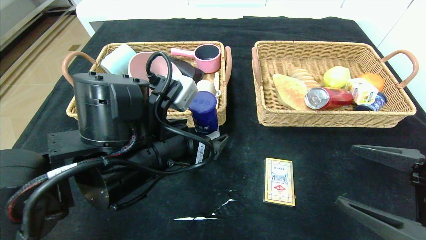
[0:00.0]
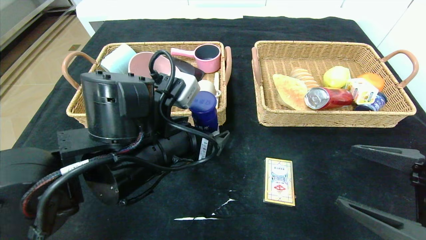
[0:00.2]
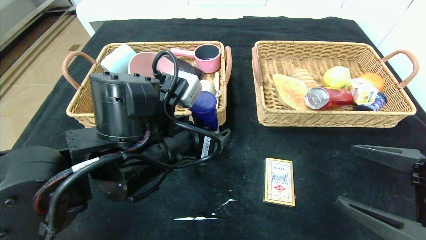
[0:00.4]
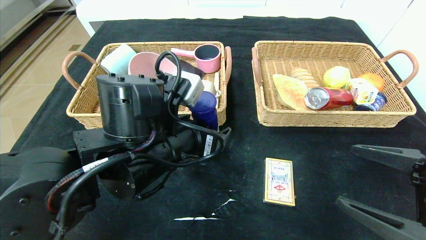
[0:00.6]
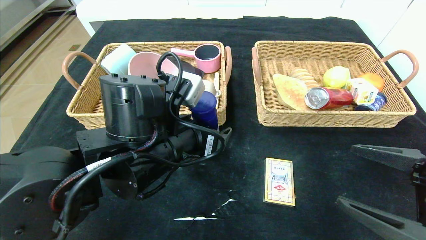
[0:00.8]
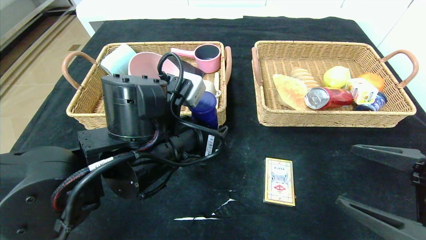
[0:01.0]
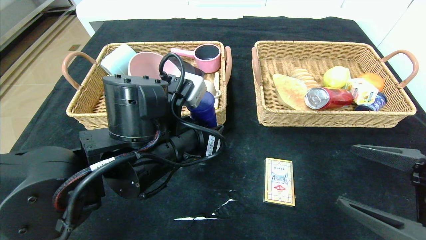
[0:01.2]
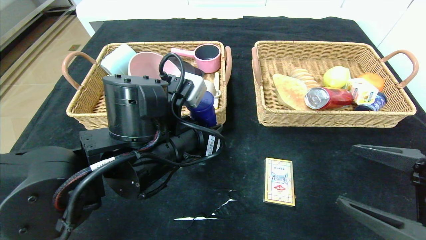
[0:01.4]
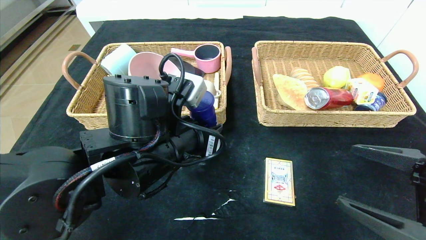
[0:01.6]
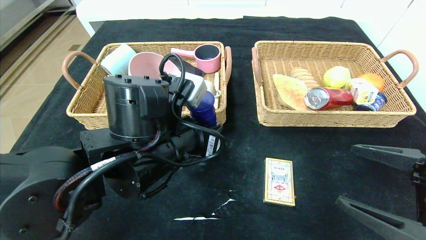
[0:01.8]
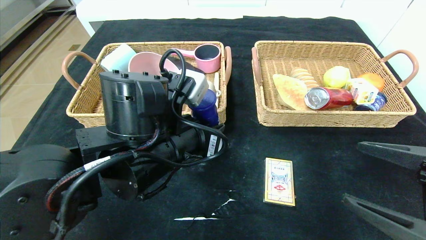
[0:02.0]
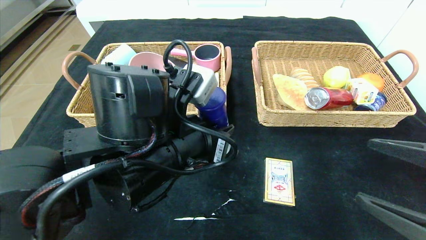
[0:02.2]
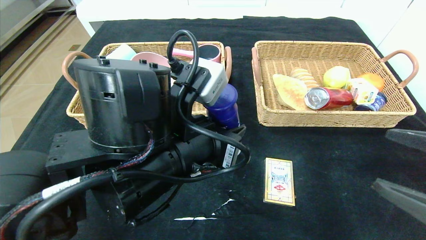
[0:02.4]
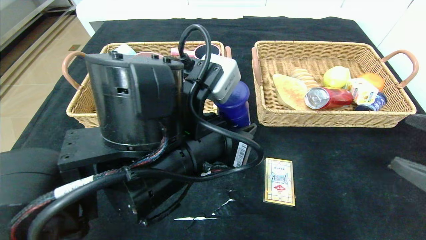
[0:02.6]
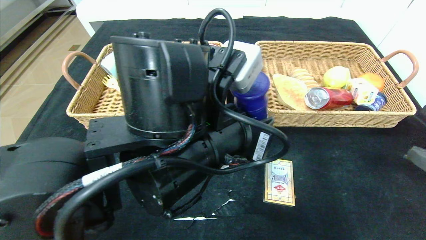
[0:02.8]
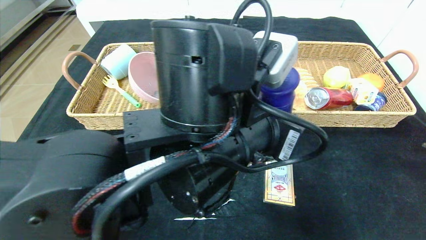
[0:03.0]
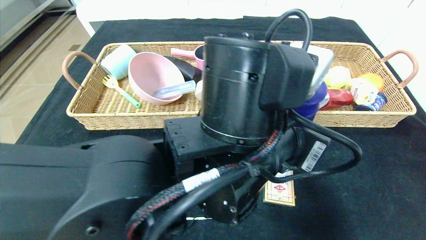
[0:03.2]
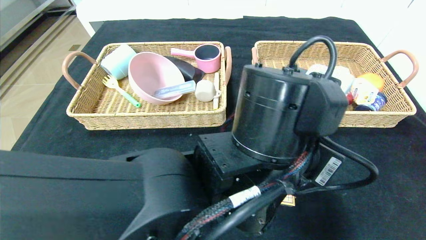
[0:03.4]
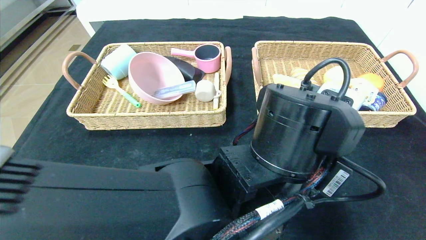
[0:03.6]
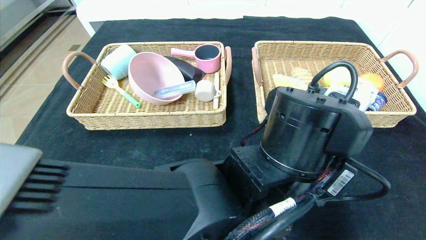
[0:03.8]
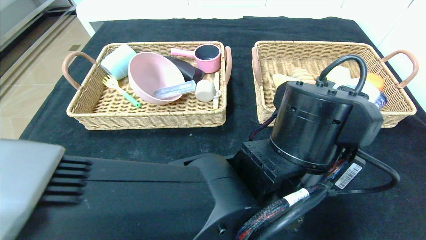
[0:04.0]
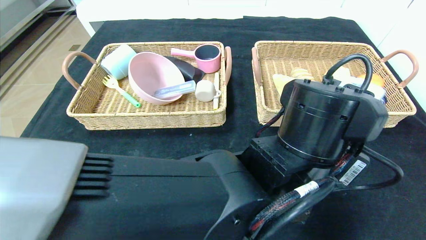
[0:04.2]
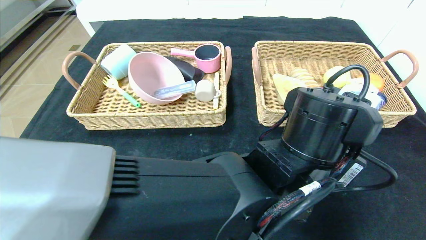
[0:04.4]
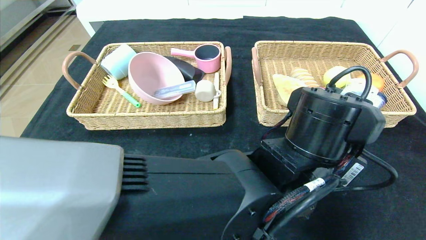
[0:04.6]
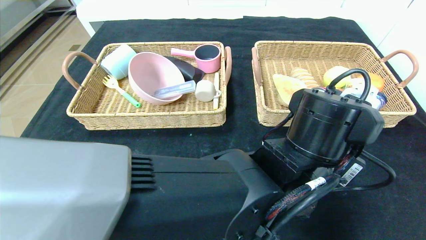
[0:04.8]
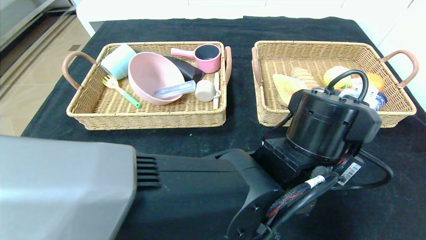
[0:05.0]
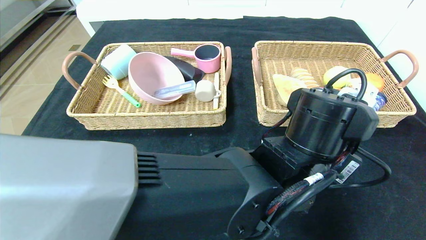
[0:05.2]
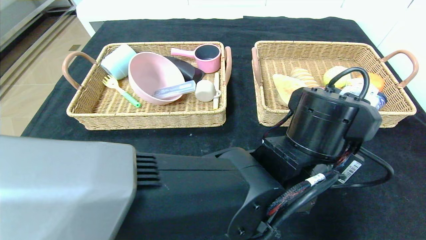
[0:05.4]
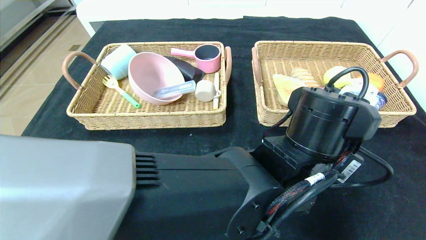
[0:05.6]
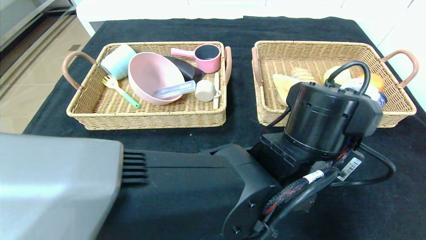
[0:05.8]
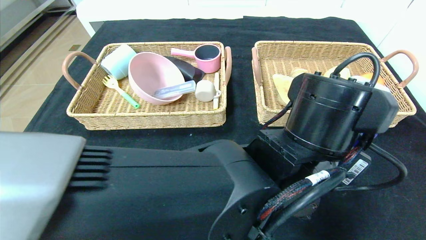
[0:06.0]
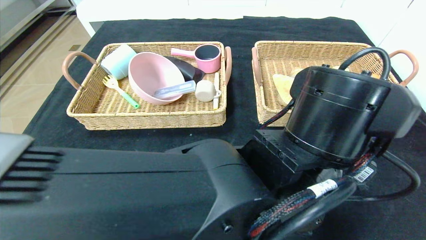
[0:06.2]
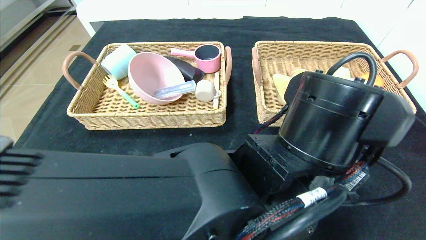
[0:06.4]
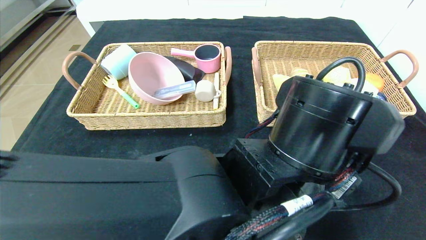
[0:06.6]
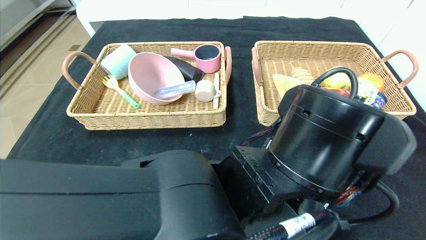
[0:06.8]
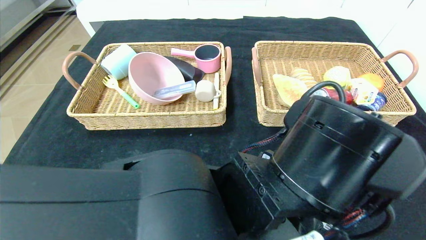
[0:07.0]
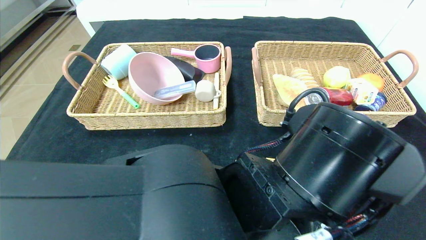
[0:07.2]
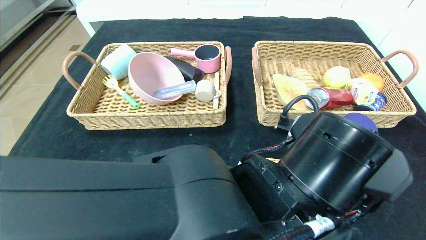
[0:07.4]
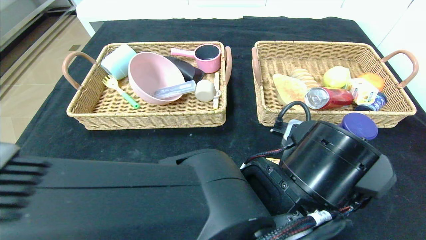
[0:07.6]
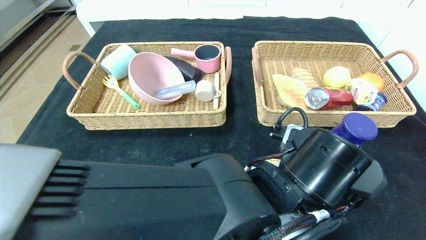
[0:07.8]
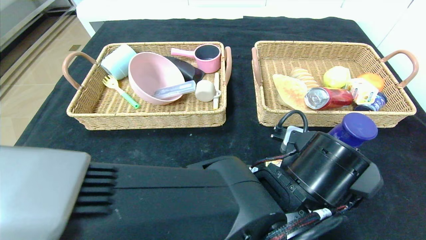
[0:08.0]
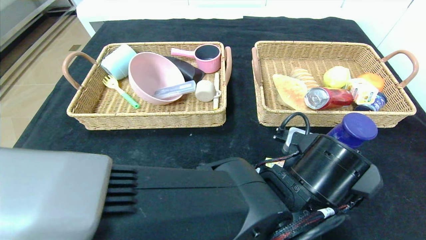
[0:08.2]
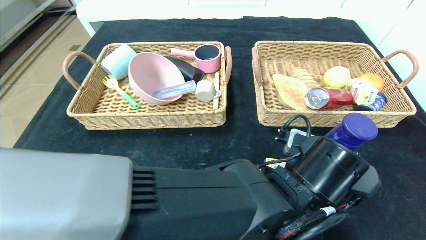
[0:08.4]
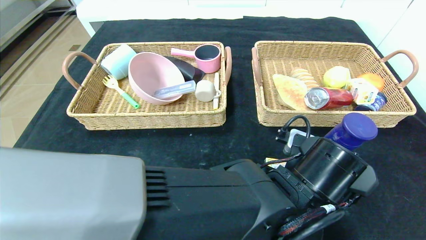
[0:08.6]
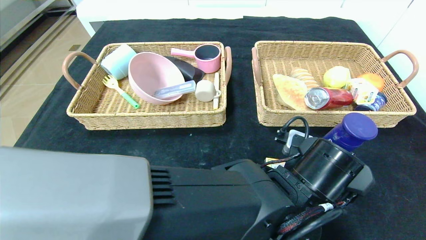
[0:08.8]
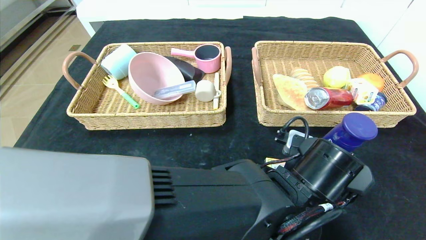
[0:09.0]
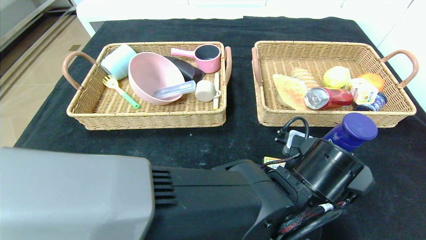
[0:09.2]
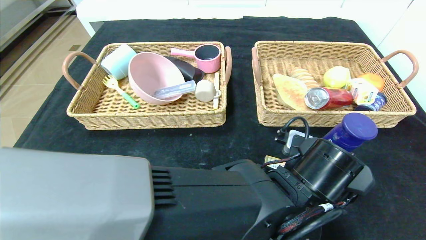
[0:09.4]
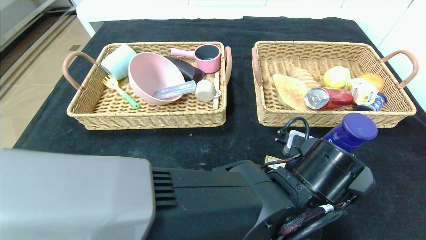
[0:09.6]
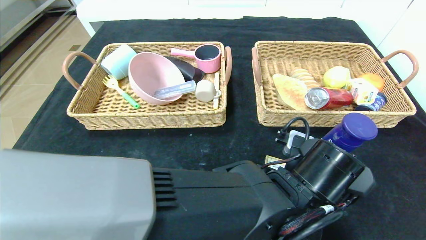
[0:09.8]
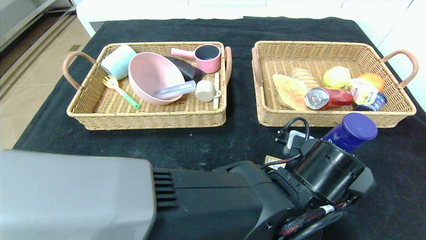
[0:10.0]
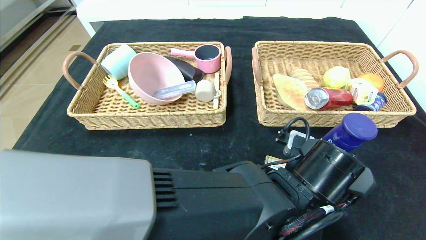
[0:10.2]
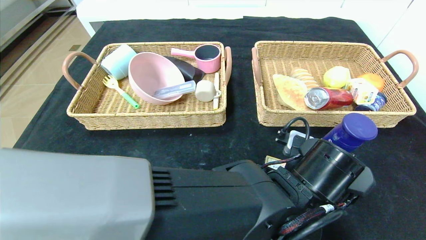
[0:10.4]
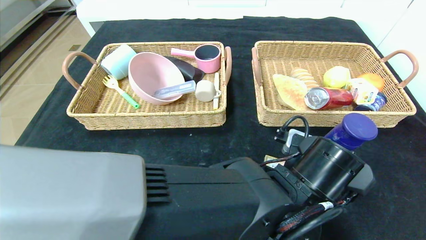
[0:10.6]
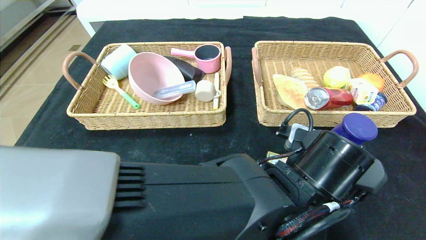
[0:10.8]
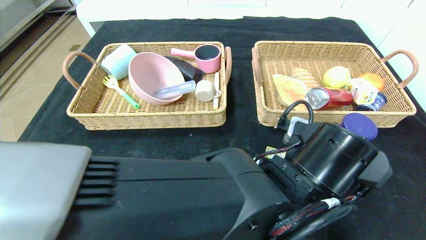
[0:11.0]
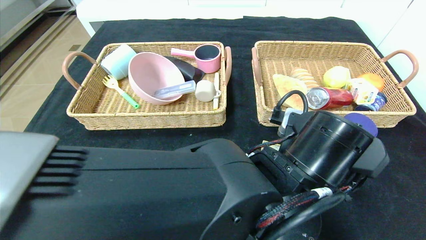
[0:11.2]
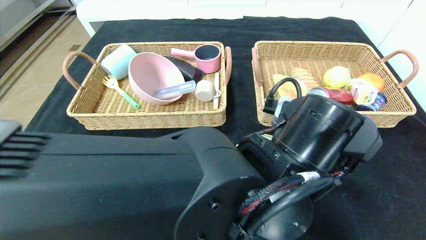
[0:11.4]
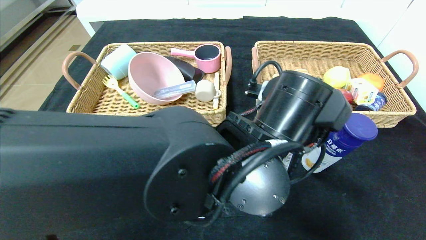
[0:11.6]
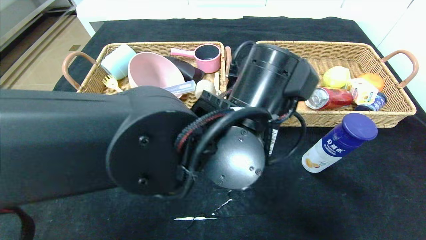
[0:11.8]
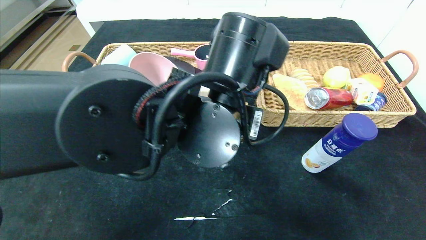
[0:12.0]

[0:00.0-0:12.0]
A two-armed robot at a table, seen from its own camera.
Step, 0:00.0 to 0:05.8: Place the yogurt in the center of the table.
0:00.0 to 0:01.6: The left gripper closes up.
0:01.6 to 0:03.0: The left gripper is displaced to the right by approximately 10 cm; the right gripper heads upward, covering roughly 5 cm.
0:03.0 to 0:04.4: The left gripper is displaced to the right by about 10 cm.
0:04.4 to 0:06.0: The left gripper opens its fingers.
0:06.0 to 0:07.6: The left gripper moves about 5 cm.
0:07.6 to 0:09.0: The left gripper moves about 5 cm.
0:09.0 to 0:10.4: The left gripper closes its fingers.
0:10.4 to 0:12.0: The left gripper heads upward and to the left, covering approximately 15 cm.

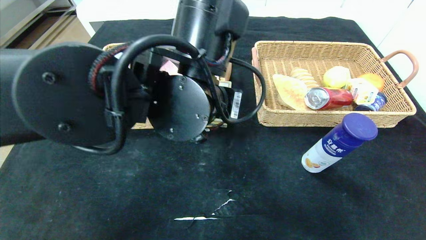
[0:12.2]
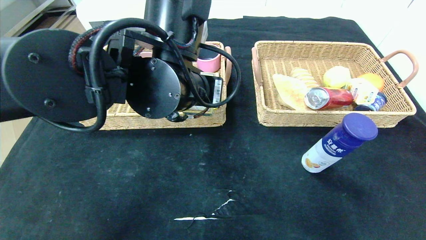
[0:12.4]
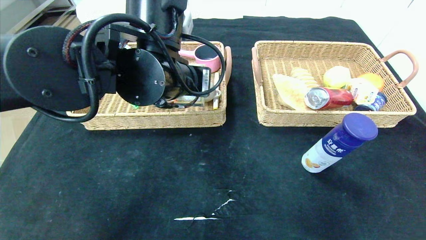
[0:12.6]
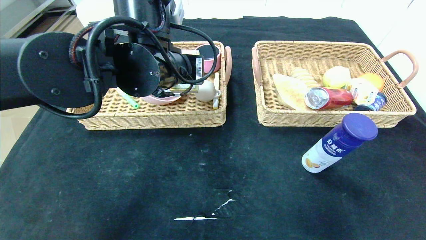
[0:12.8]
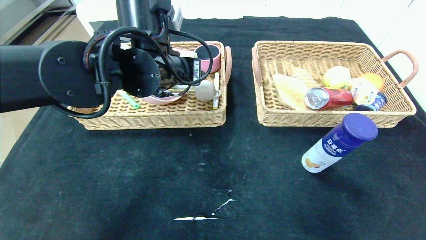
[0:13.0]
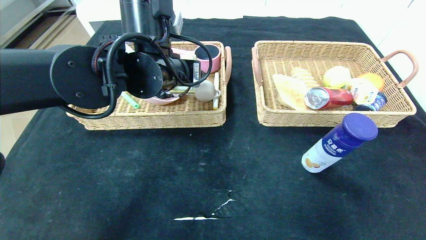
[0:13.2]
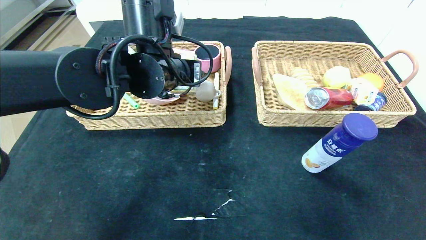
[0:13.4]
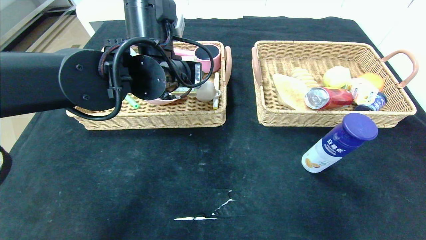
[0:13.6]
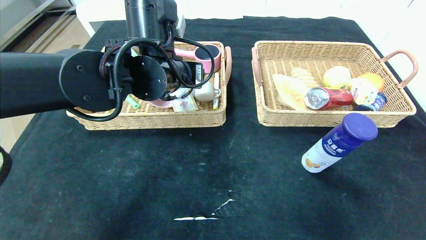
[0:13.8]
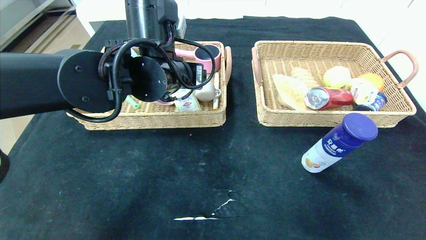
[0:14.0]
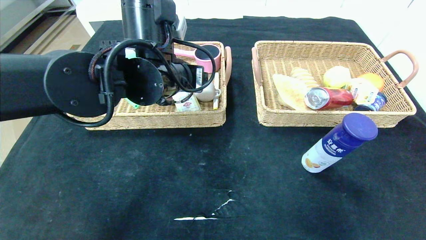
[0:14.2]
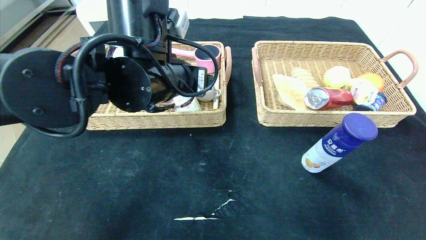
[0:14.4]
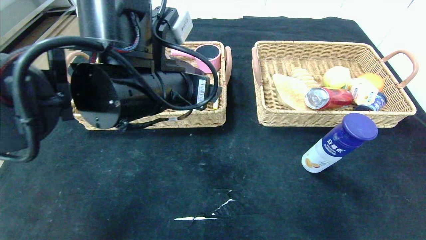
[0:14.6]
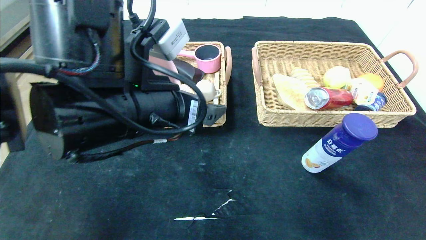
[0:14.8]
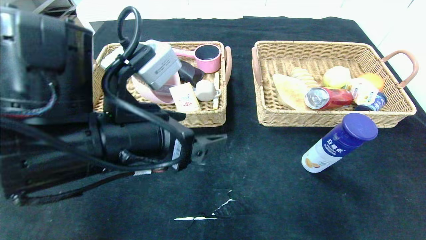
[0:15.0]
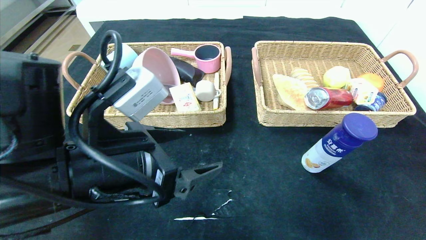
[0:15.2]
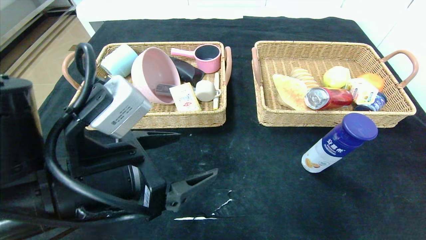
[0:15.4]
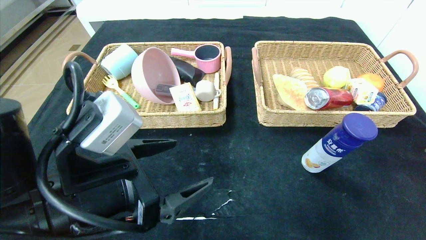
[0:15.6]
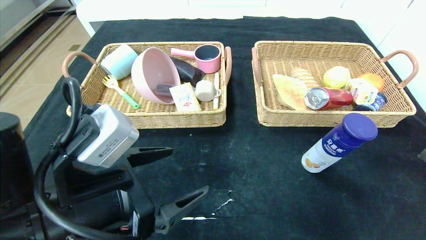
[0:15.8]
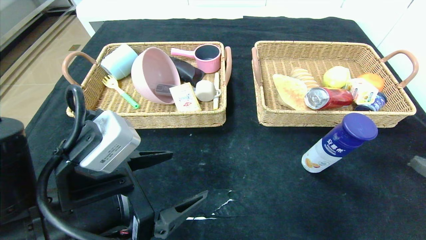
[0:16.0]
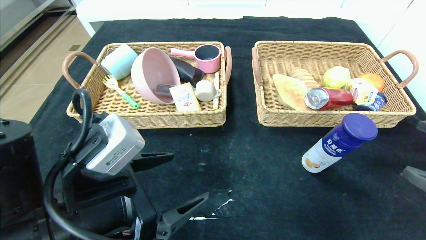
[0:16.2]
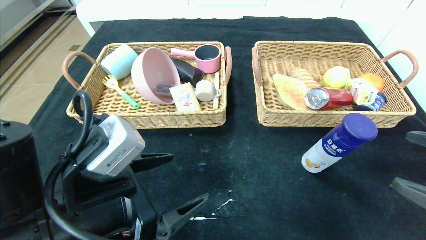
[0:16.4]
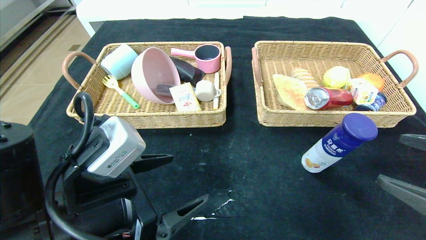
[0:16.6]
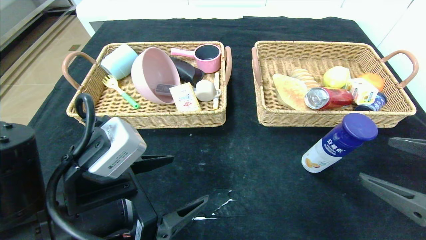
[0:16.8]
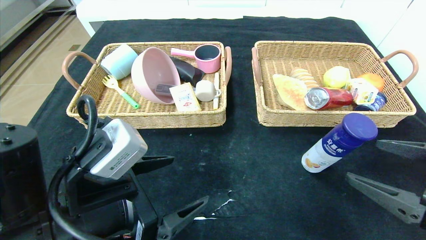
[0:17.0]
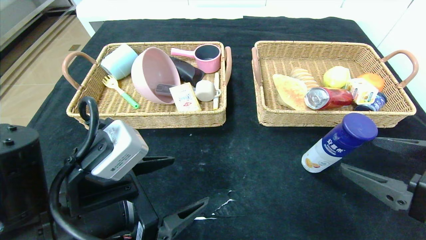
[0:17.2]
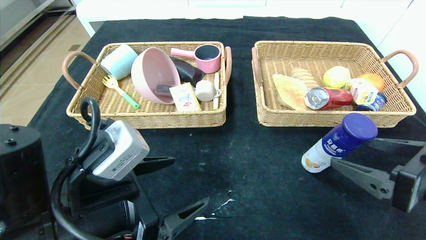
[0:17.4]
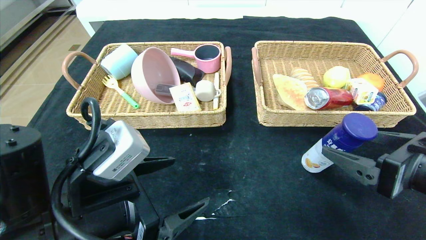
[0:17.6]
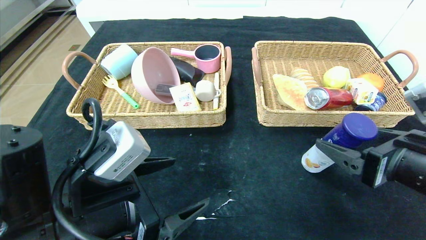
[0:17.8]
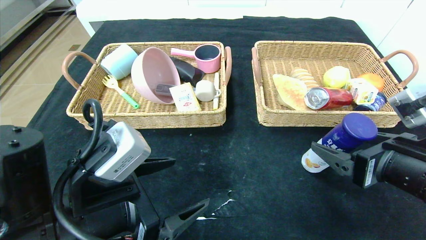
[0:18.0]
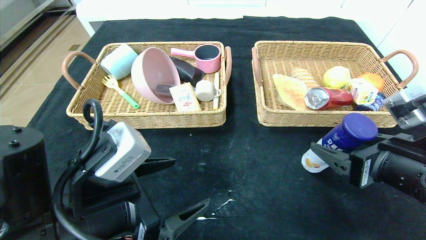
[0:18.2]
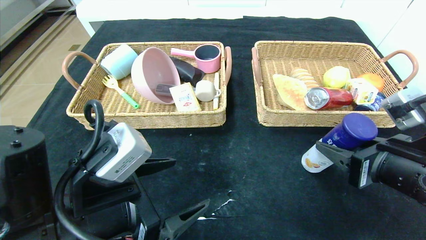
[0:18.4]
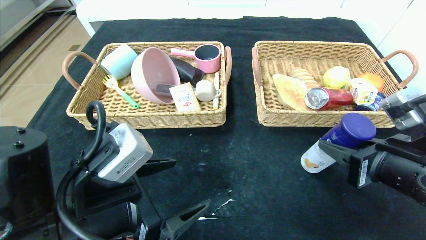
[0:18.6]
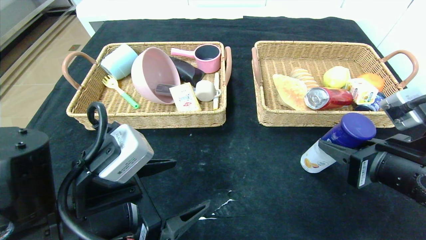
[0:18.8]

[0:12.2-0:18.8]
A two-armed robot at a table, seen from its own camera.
0:12.2 to 0:13.8: The left gripper moves forward and to the left, roughly 10 cm.
0:13.8 to 0:15.4: The left gripper heads backward, covering about 15 cm.
0:15.4 to 0:17.2: The right gripper moves to the left, about 5 cm.
0:17.2 to 0:18.8: The right gripper ends up approximately 5 cm from where it was, and closes its fingers.
